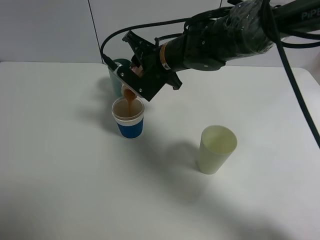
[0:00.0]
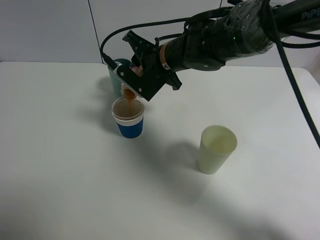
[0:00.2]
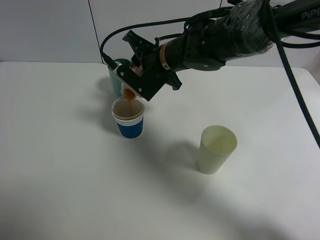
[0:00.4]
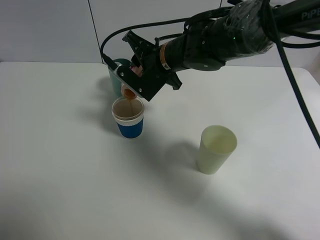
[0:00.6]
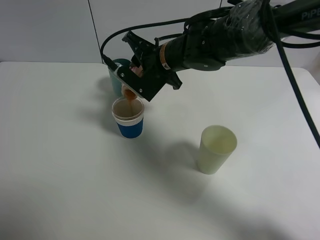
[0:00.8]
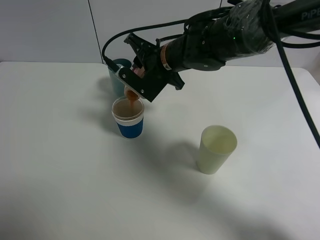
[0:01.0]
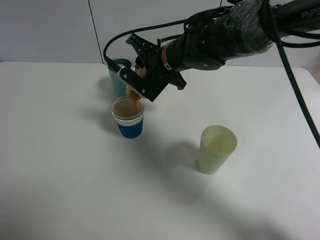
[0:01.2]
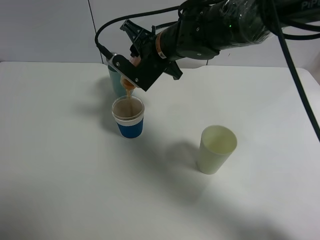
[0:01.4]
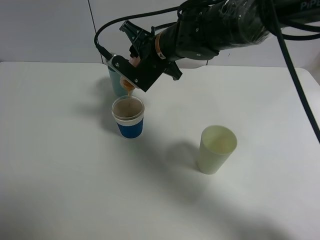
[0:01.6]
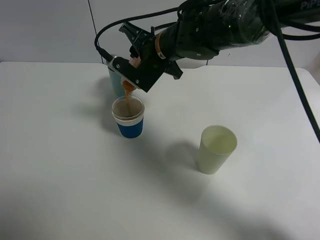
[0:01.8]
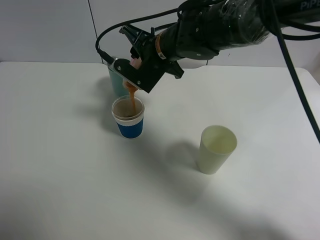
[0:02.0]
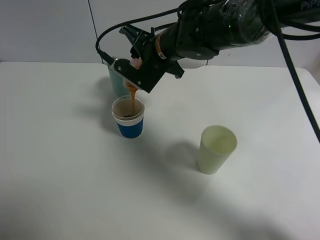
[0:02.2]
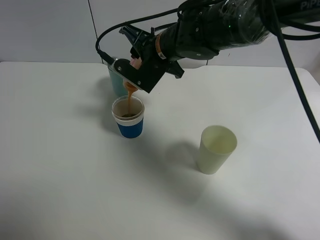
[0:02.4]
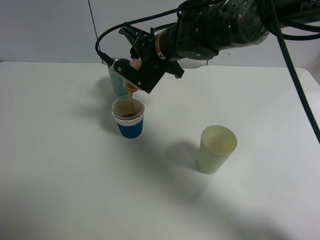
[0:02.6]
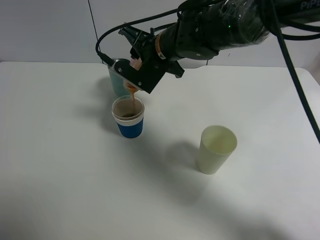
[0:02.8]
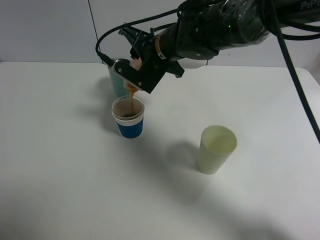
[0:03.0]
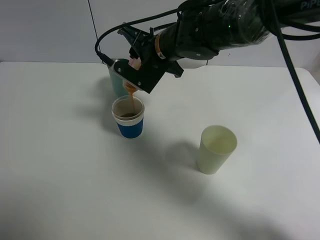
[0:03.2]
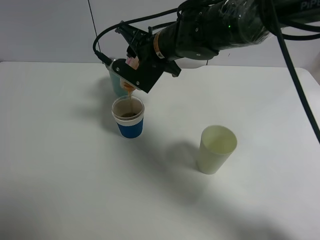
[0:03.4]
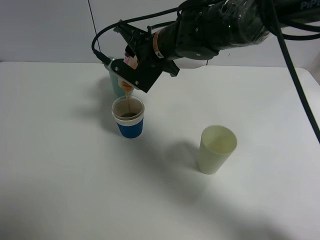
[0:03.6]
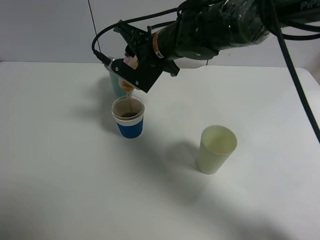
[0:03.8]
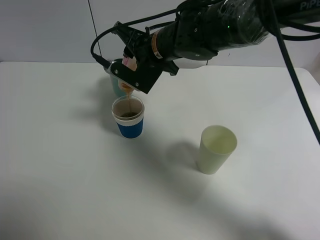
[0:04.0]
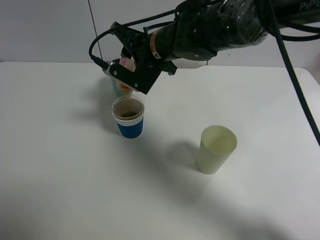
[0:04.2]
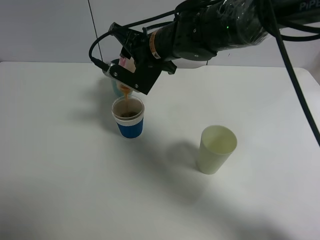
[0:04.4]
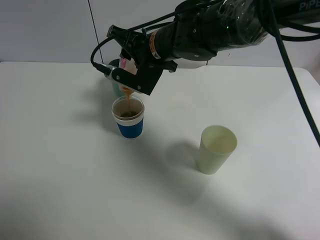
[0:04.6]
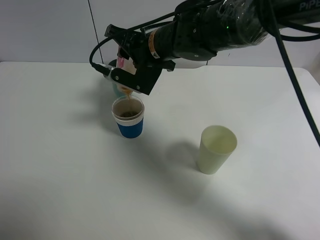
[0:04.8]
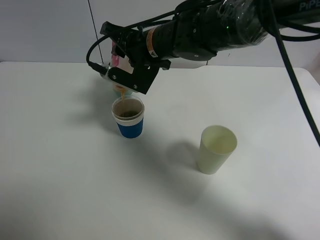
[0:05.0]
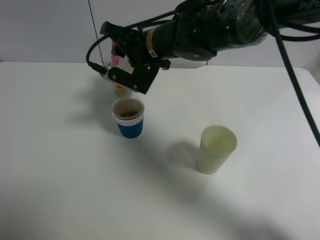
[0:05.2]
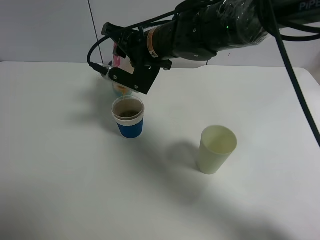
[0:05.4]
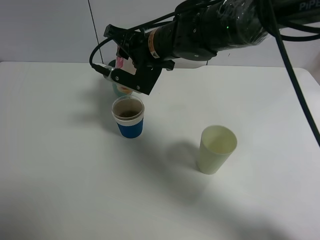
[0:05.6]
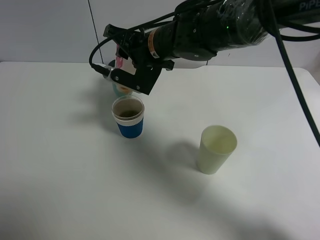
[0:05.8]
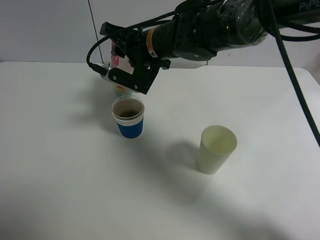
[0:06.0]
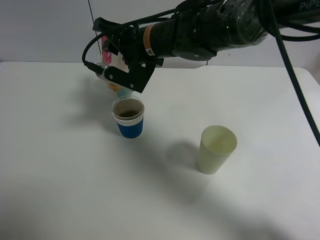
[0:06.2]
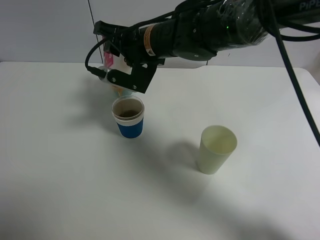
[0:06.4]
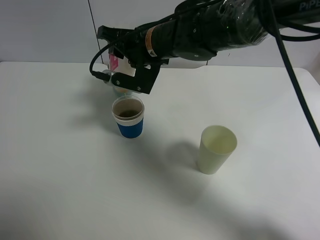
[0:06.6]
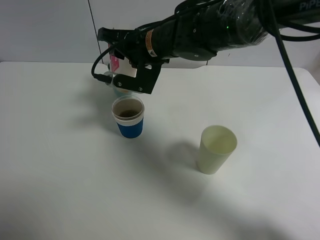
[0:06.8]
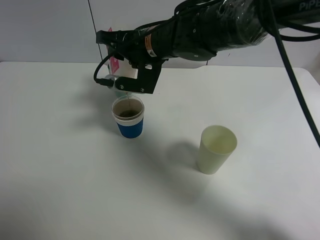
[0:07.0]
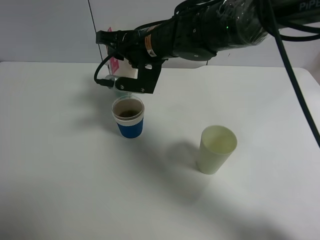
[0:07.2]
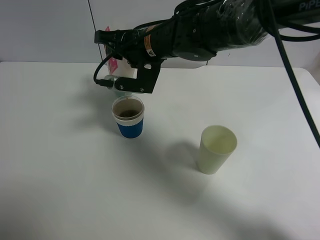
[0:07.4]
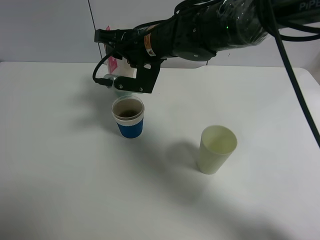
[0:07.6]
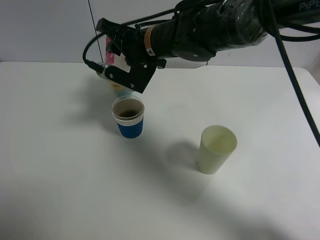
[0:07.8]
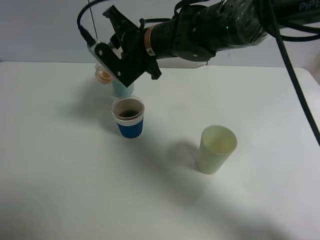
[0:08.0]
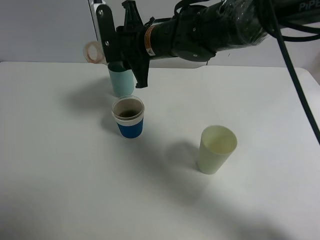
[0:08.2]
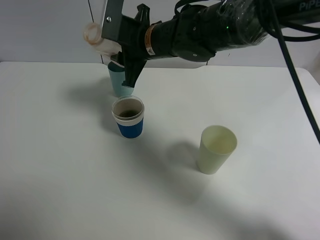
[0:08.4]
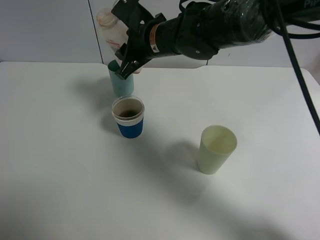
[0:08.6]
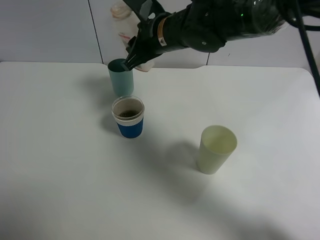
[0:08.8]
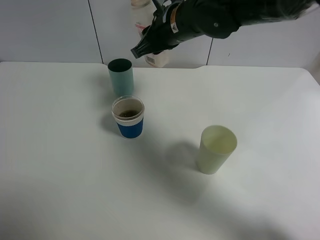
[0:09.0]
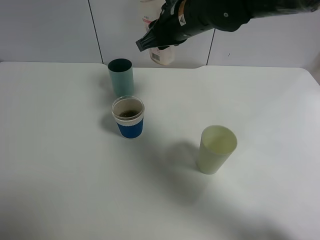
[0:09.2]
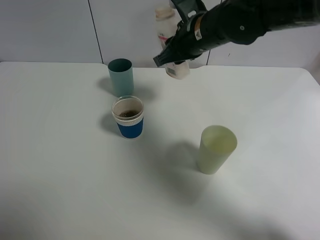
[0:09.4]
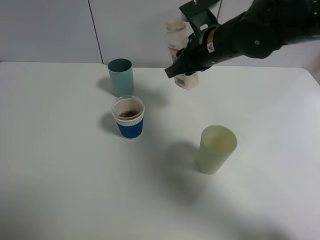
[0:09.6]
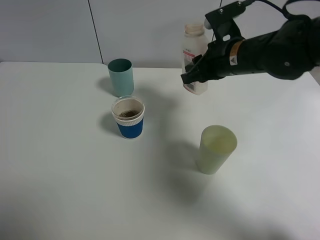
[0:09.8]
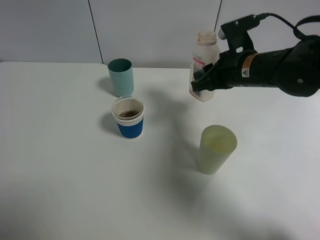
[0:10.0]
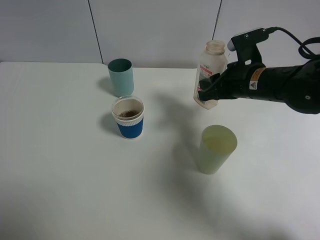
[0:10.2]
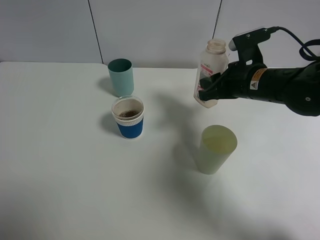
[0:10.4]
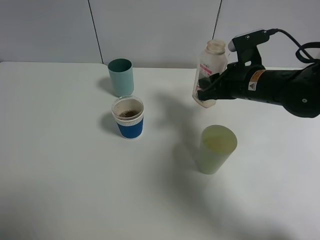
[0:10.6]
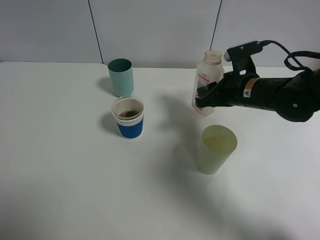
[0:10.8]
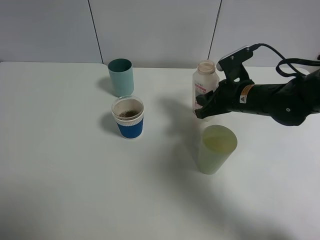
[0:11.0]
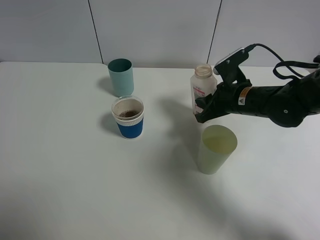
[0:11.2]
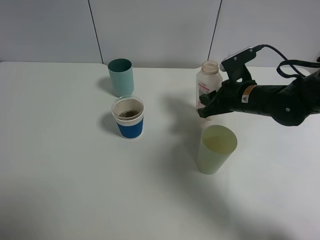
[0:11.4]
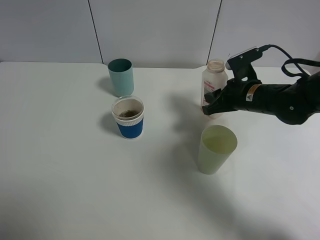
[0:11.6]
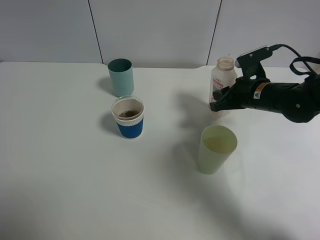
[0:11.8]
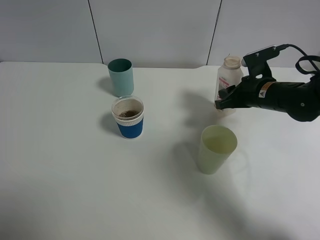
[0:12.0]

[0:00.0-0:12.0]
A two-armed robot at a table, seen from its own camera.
Task of the whole recording: use a gripper to hold the bottle of the drink and pour it into a random cup.
Step, 0:00.0 to 0:07.8: Pour the cranberry juice into the paper cup with the right gripper.
0:00.0 to 0:04.4: The grippers make only small movements.
0:04.4 to 0:06.0: The grippers move only a little.
0:06.0 to 0:07.6: The grippers move only a little.
0:07.6 to 0:09.0: The right gripper changes place by roughly 5 cm.
0:09.0 to 0:10.4: The right gripper shifts about 15 cm to the right, downward and backward.
0:10.4 to 0:12.0: The right gripper changes place by about 5 cm.

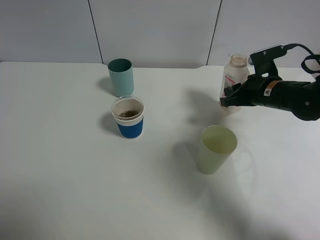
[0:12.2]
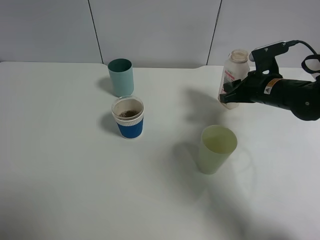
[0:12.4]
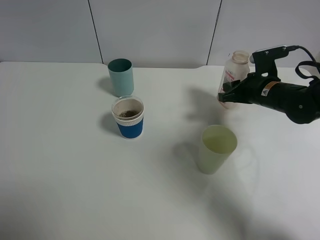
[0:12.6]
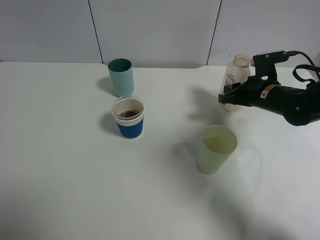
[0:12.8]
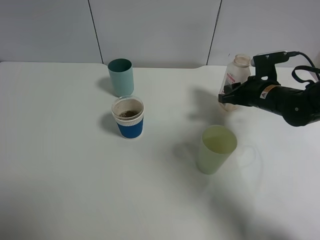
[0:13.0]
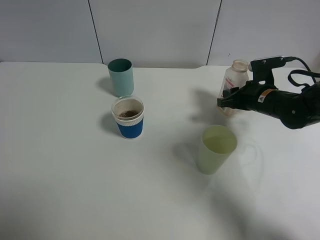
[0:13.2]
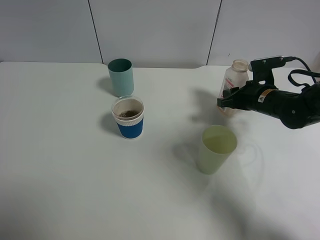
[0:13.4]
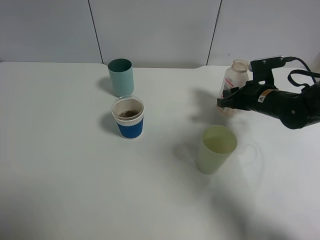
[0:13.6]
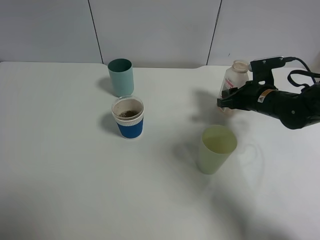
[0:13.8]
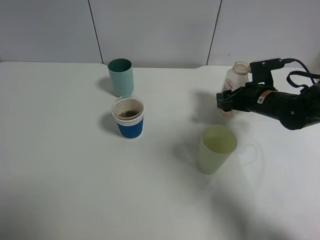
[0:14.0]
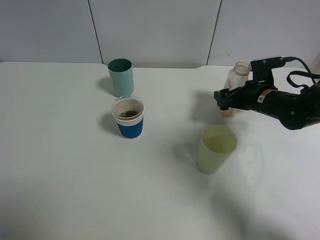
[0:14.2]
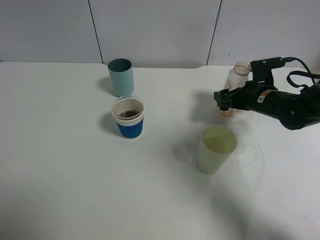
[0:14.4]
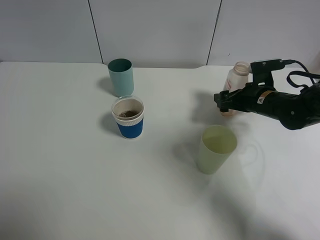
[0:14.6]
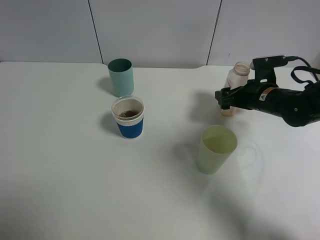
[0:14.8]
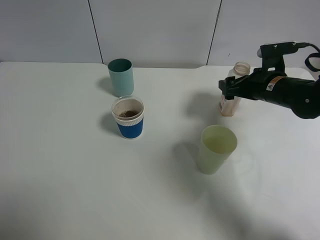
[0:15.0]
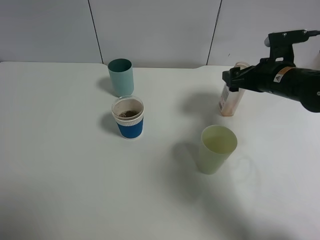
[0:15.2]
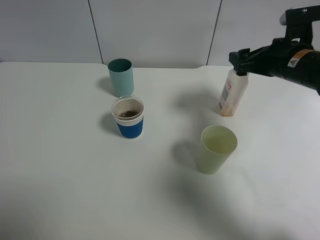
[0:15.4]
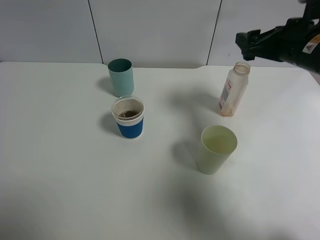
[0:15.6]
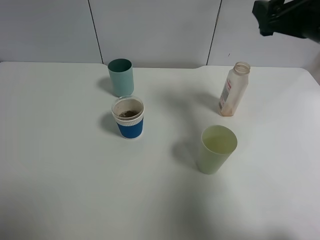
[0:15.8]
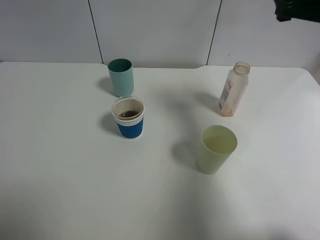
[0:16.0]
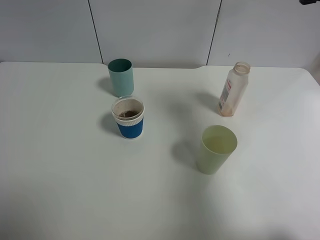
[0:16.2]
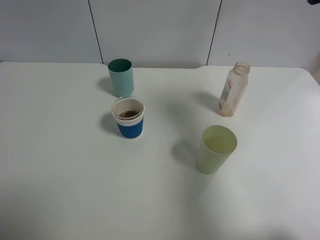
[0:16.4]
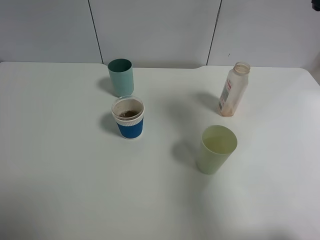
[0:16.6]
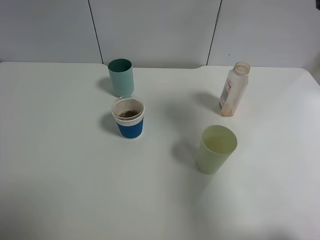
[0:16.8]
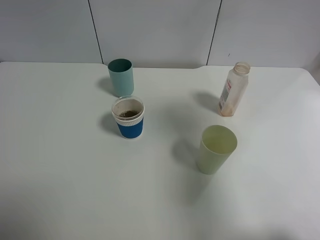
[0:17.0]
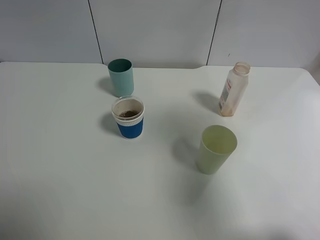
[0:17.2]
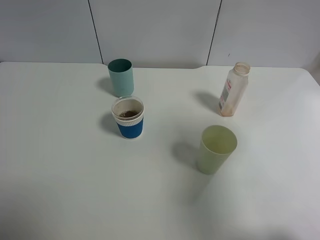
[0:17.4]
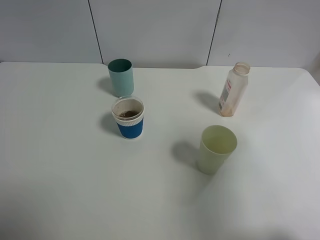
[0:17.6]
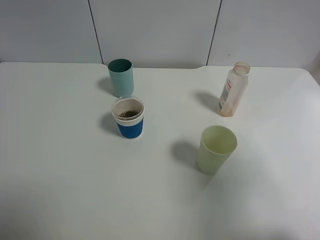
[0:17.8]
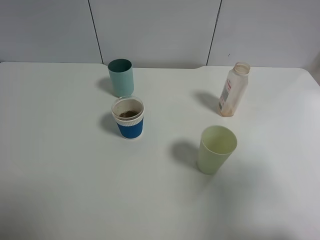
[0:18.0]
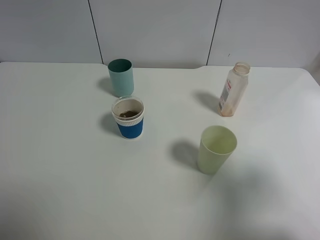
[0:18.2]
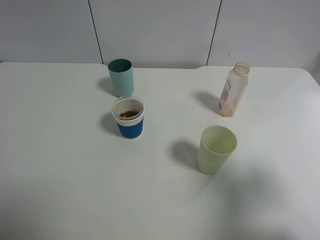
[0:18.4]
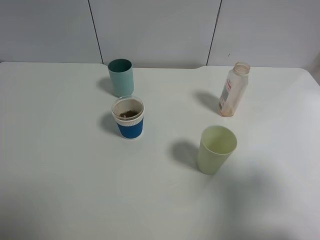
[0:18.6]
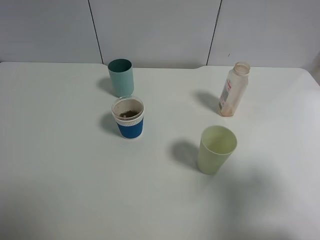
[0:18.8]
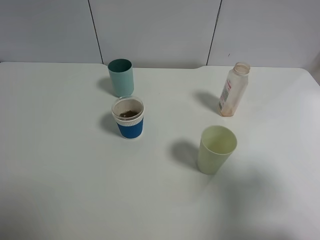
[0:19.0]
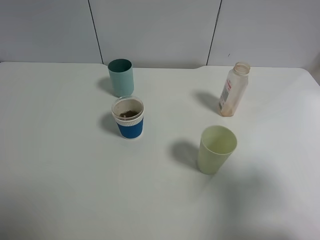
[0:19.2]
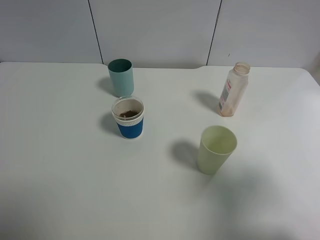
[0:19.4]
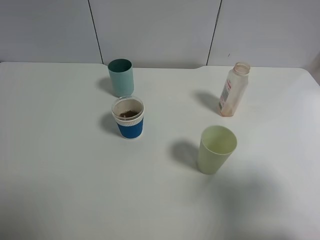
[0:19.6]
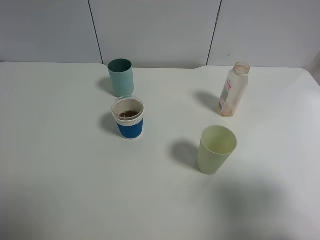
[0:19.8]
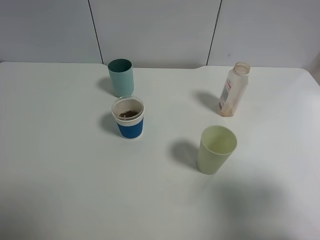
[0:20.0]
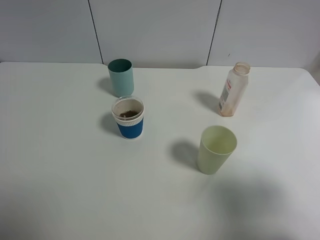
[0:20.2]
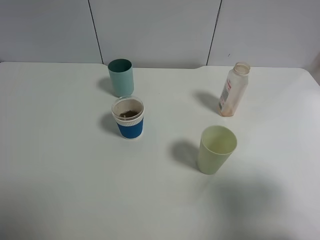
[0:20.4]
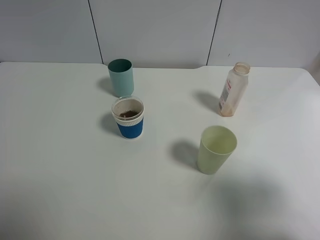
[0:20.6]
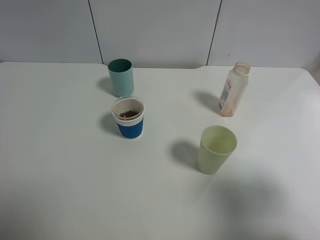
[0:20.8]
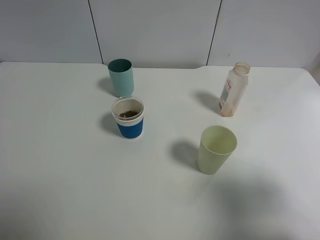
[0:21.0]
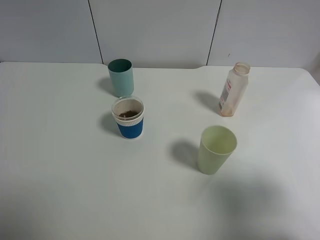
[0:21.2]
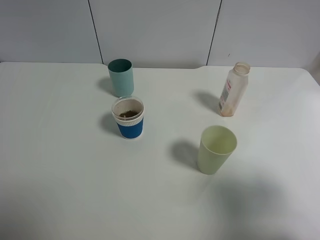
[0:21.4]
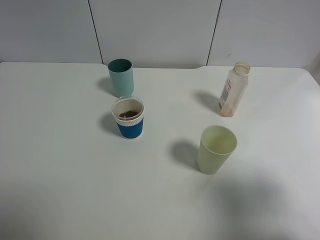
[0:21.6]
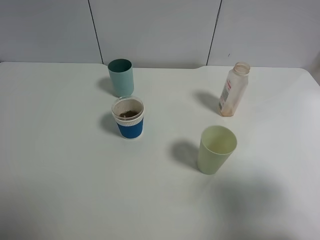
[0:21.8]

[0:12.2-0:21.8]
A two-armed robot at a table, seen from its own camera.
Task of the whole recording: use a gripper to hold the bottle of the drink and pour it into a random cup.
Step, 0:12.2 to 0:14.2: Place the cranberry juice bottle on the table with the right gripper.
0:12.2 to 0:13.8: The grippers make only small movements.
0:13.8 to 0:15.4: The right gripper travels upward by about 10 cm, and opens.
0:15.4 to 0:17.0: The right gripper is displaced upward and backward by some 20 cm.
0:17.0 to 0:18.6: The right gripper shifts roughly 15 cm backward and downward.
0:20.2 to 0:21.8: The two grippers keep their place.

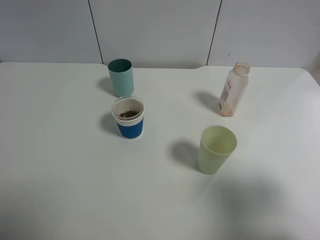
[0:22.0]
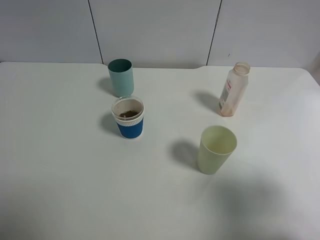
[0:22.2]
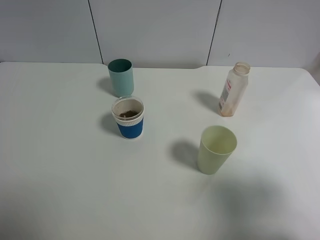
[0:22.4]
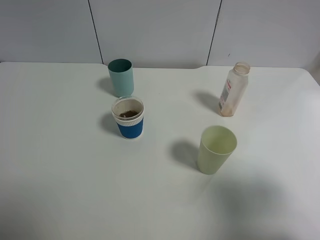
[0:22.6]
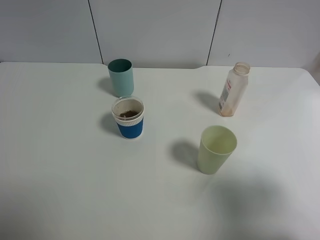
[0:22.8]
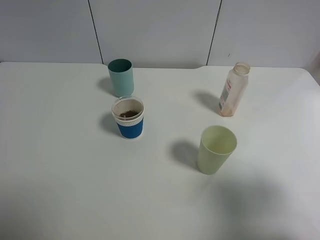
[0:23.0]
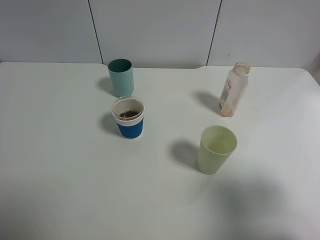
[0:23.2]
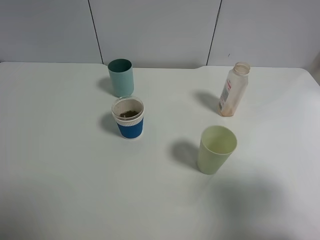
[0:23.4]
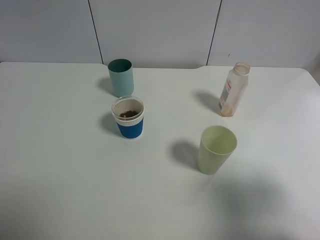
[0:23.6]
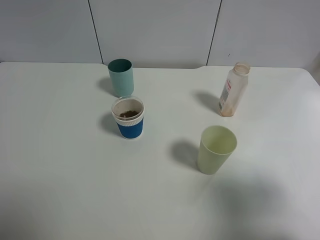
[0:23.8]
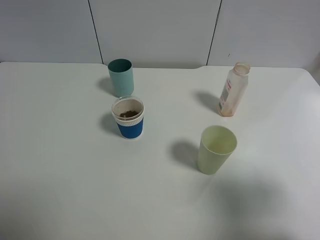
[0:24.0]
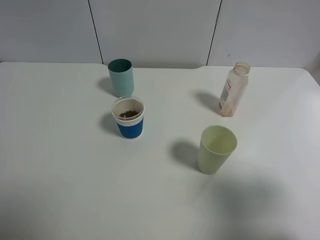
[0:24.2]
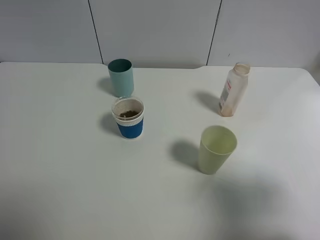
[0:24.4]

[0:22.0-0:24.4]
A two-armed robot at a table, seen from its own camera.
Task of the whole recording: use a gripper to hold the bottle of the drink and pour it into a random cup.
0:22.0 to 0:24.4: Both grippers stay put.
